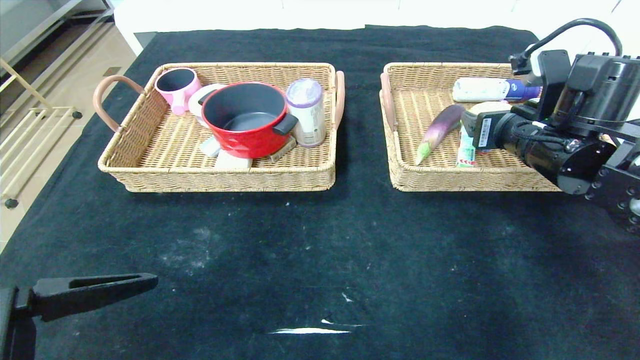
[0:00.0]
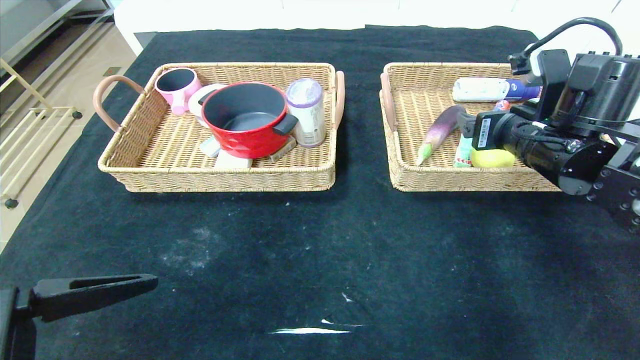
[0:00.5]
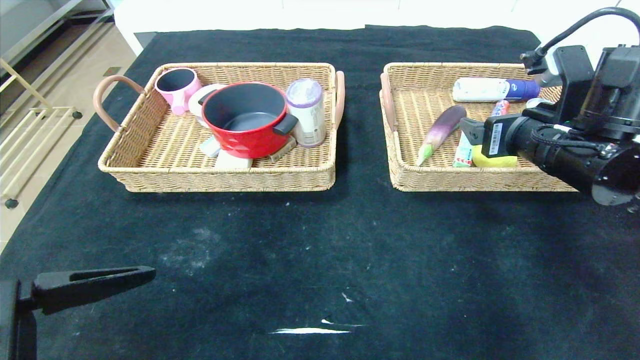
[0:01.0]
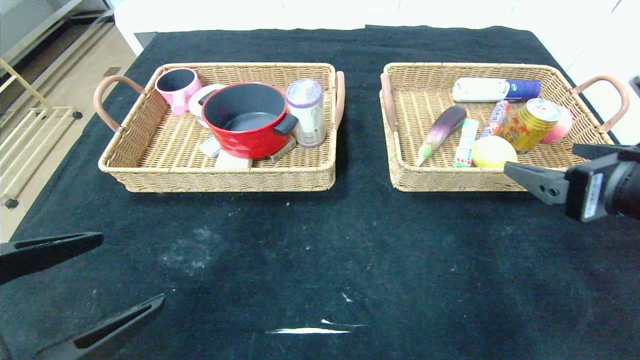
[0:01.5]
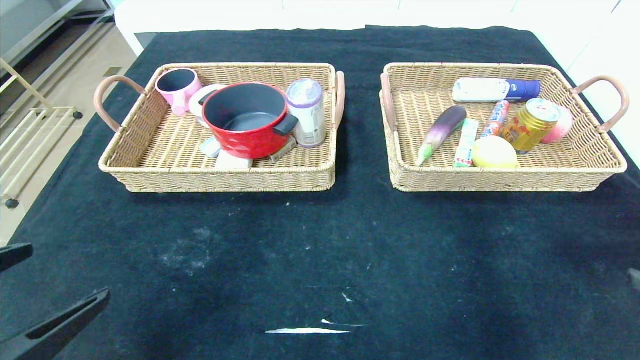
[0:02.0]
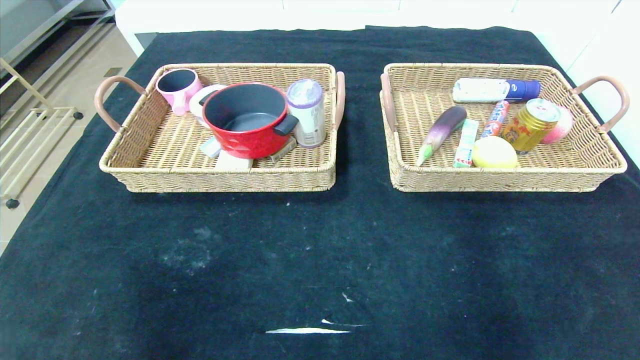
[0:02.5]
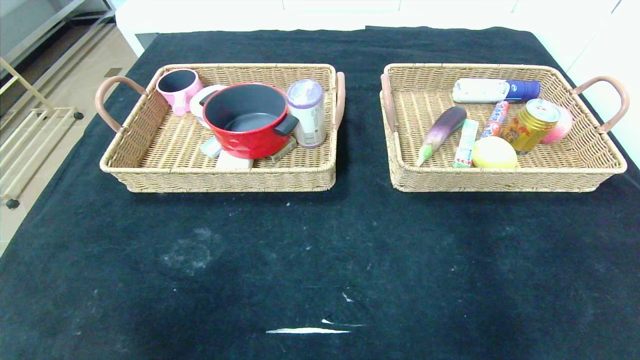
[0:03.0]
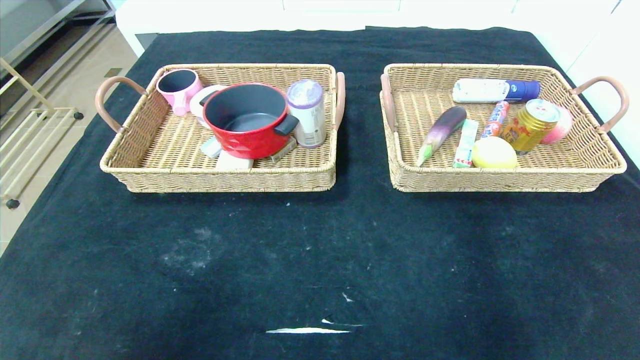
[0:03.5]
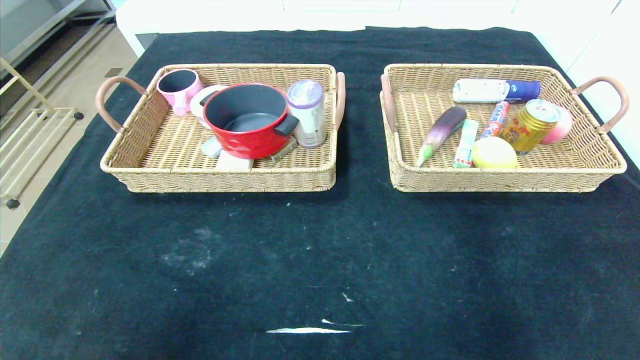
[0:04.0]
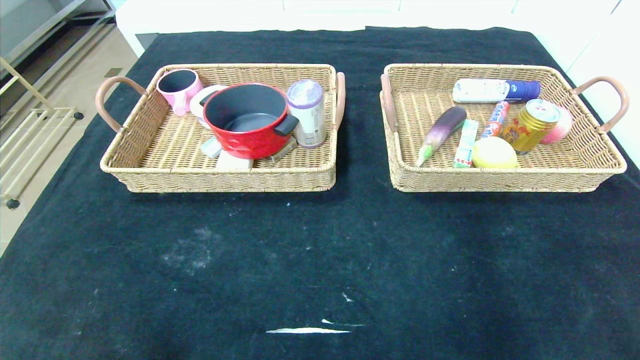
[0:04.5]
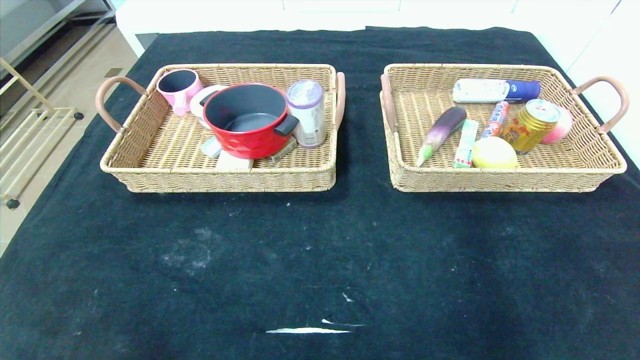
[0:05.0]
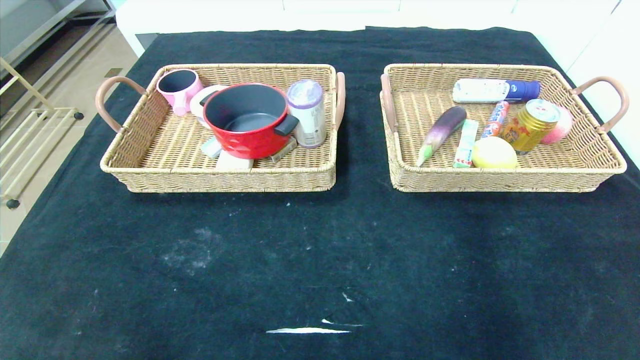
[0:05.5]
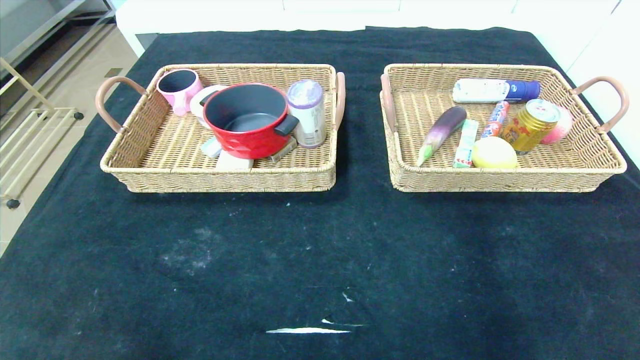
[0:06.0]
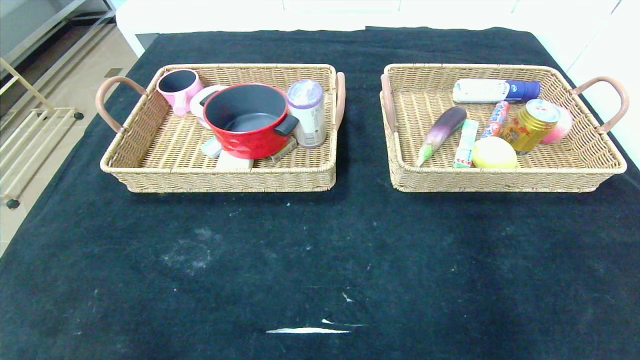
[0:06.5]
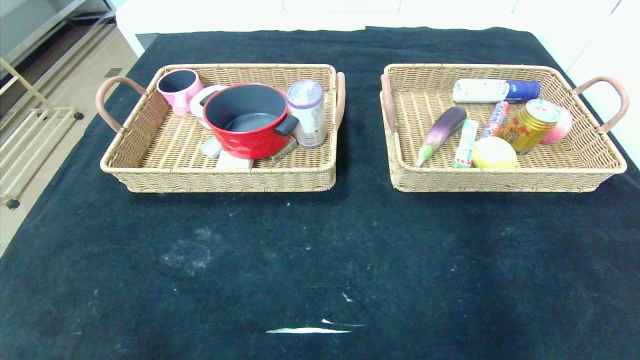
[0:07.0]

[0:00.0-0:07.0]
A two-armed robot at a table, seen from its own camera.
0.0 to 2.0 s: The right gripper goes about 25 cm backward.
2.0 to 3.5 s: The left gripper moves backward and downward, some 10 cm; the right gripper travels backward by some 15 cm.

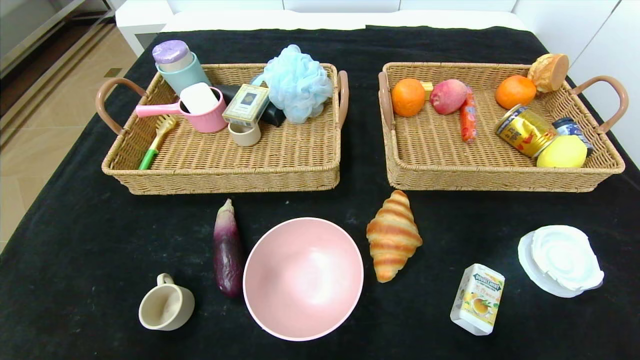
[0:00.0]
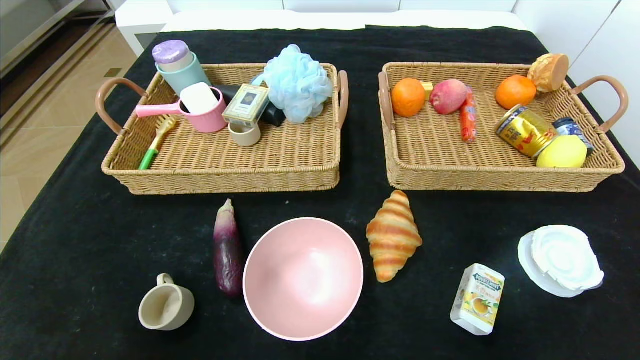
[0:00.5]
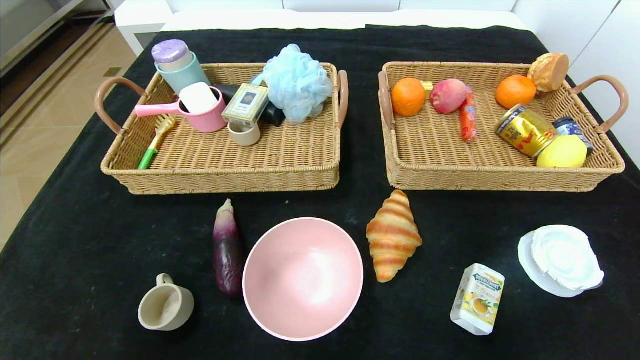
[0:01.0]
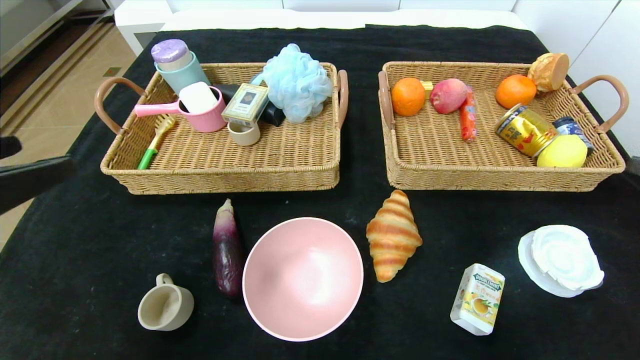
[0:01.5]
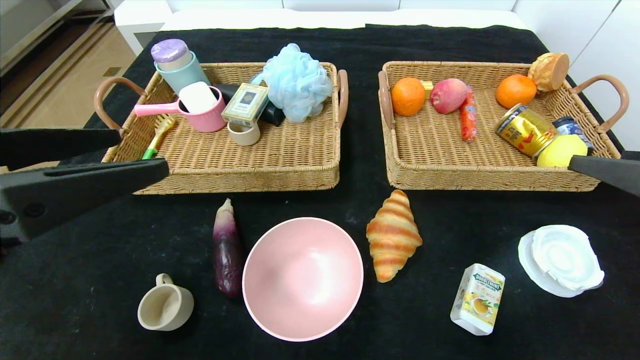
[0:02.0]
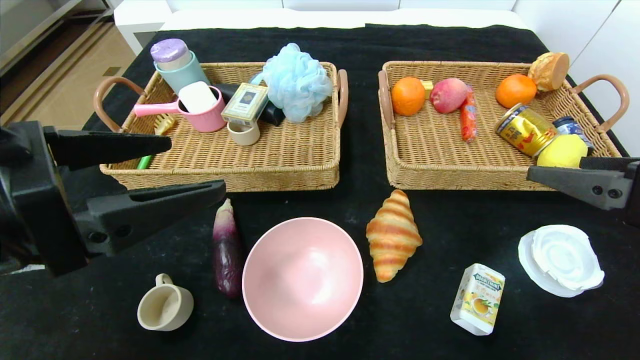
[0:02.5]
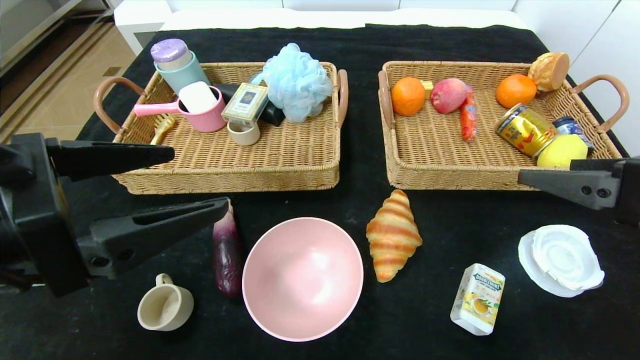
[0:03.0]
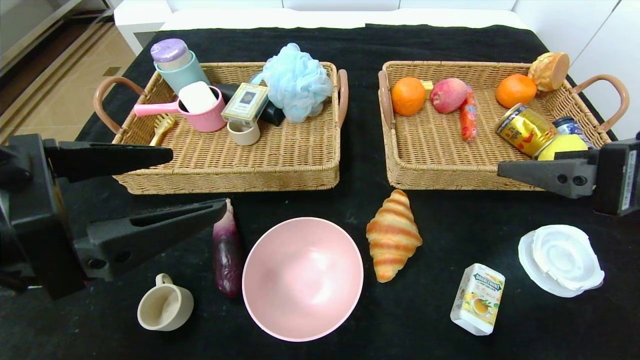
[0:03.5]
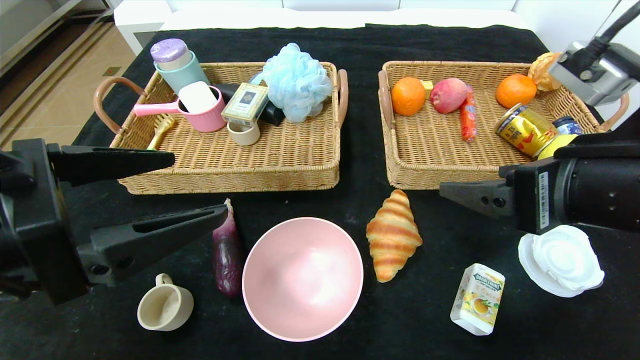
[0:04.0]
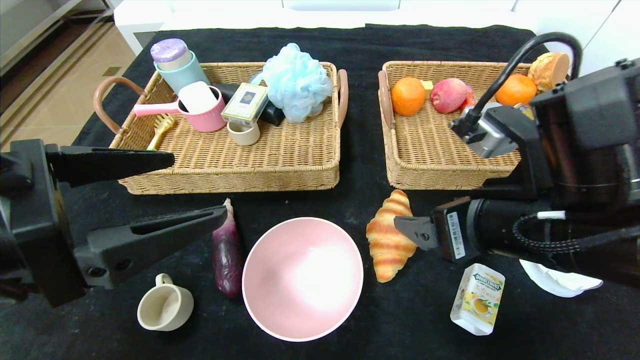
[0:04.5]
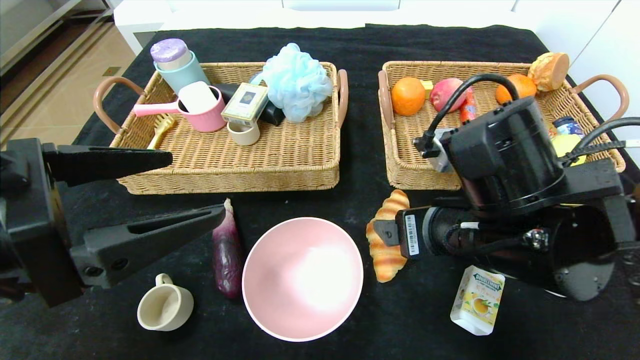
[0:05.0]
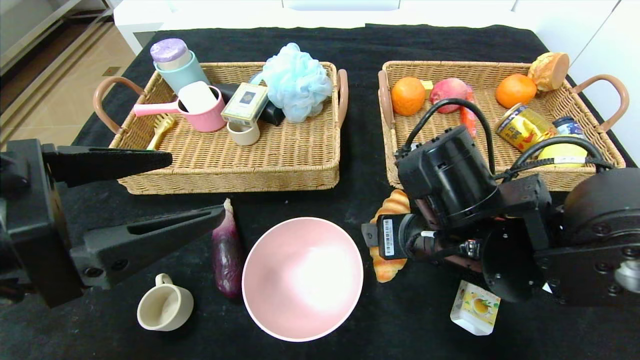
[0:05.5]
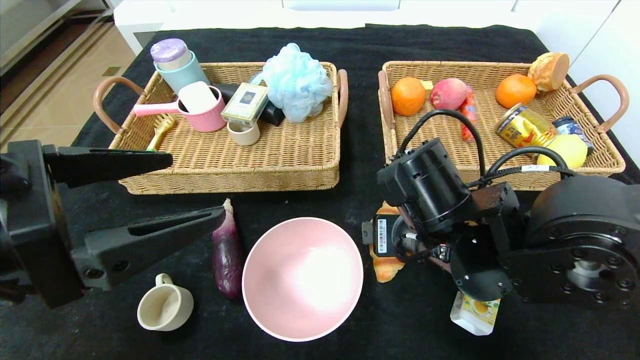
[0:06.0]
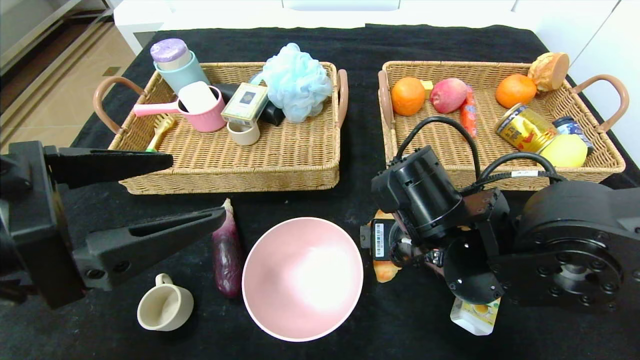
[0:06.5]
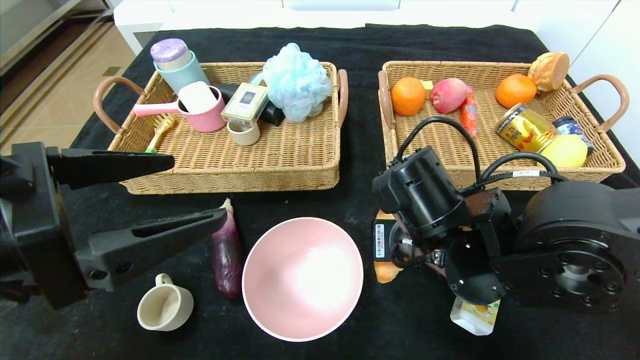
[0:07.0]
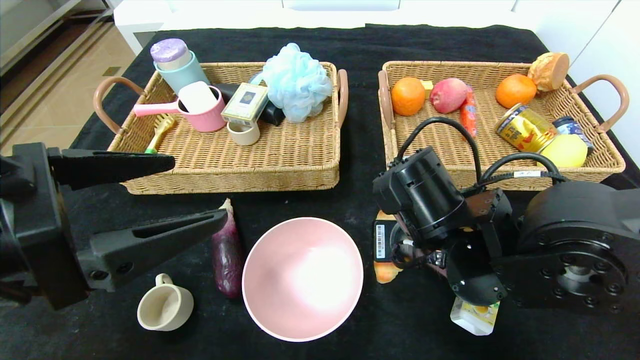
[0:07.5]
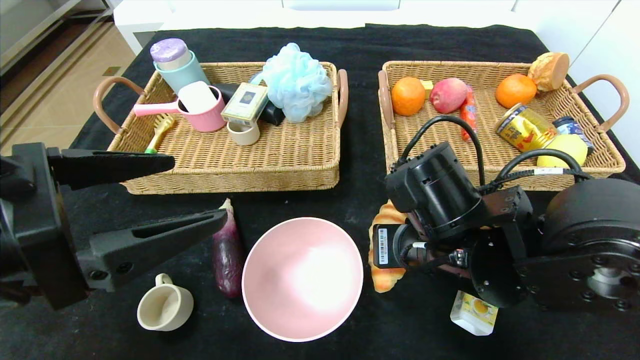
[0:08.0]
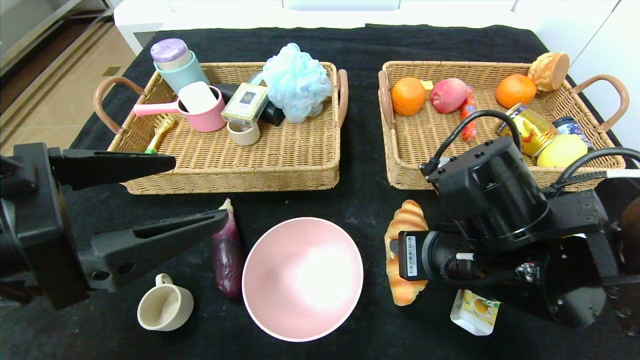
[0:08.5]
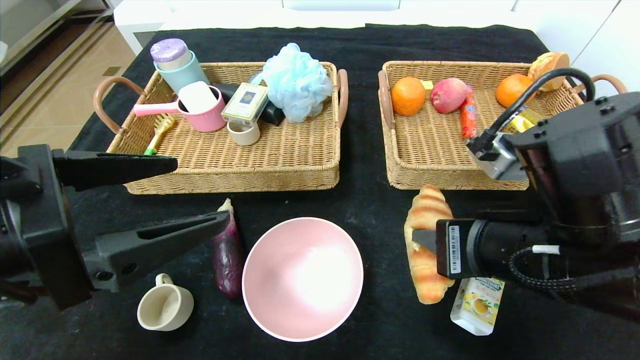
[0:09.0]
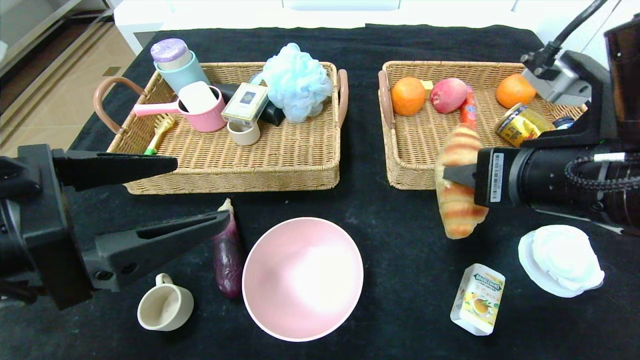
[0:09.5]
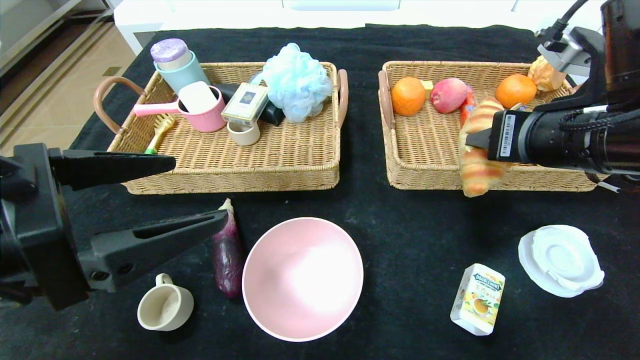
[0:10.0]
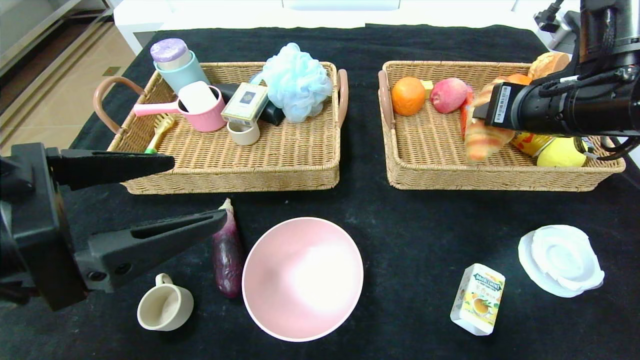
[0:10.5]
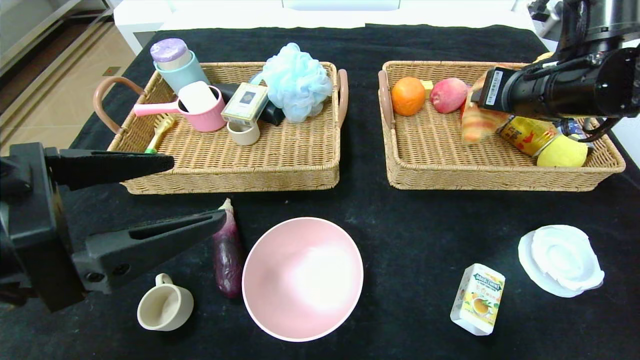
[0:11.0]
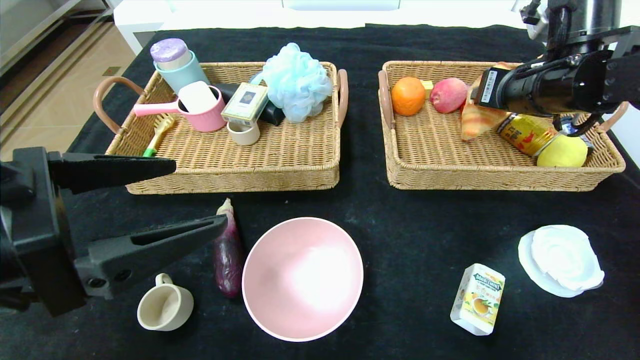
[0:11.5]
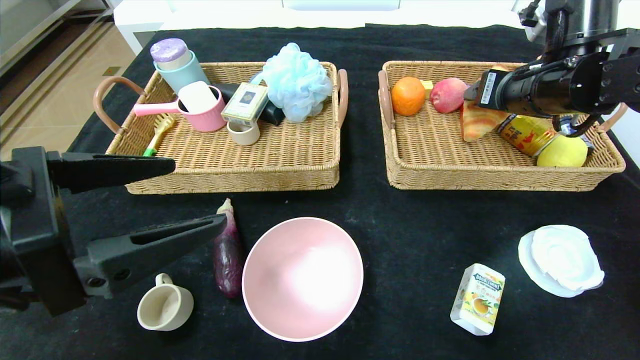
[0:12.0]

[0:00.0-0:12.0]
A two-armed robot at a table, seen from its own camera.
0.0 to 2.0 s: The grippers both shift upward and forward by about 25 cm.
2.0 to 4.0 s: The right gripper heads to the left, covering roughly 10 cm.
4.0 to 6.0 s: The right gripper is displaced to the left, downward and forward by roughly 15 cm.
6.0 to 8.0 s: The right gripper closes.
8.0 to 10.0 s: The right gripper is displaced to the right and upward by some 15 cm.
10.0 to 12.0 s: The right gripper travels forward by some 10 cm.

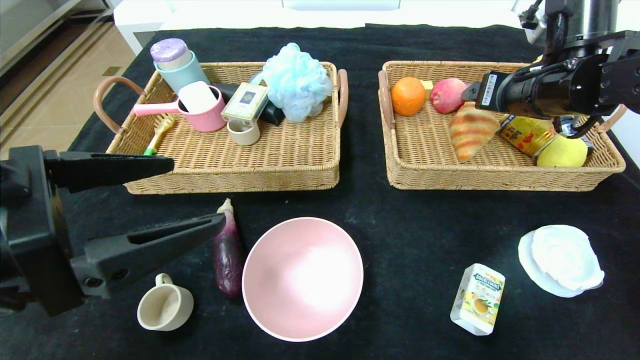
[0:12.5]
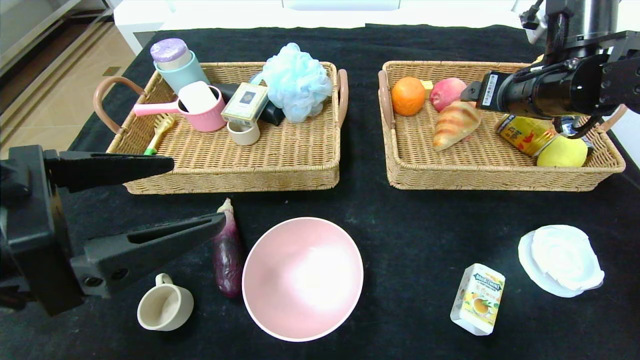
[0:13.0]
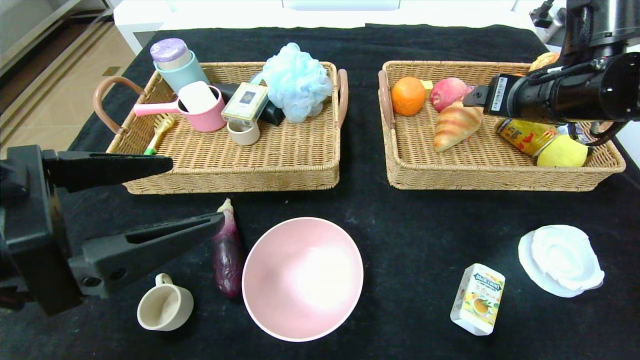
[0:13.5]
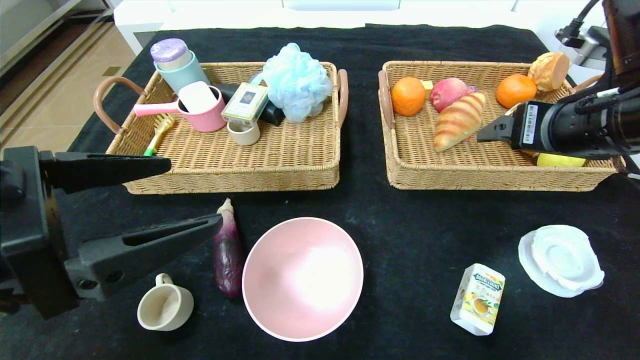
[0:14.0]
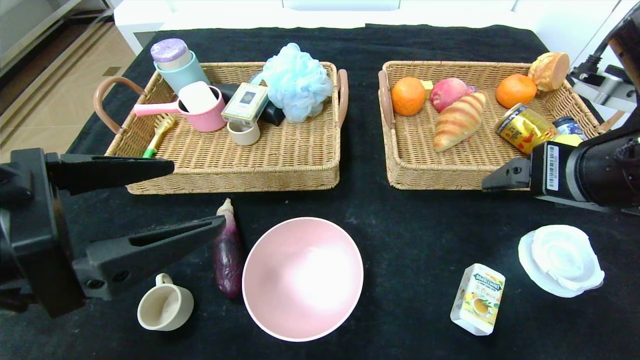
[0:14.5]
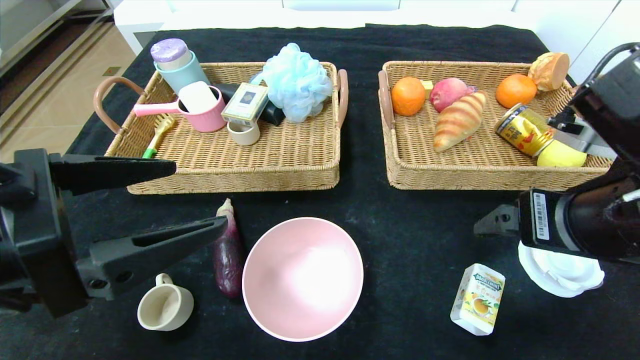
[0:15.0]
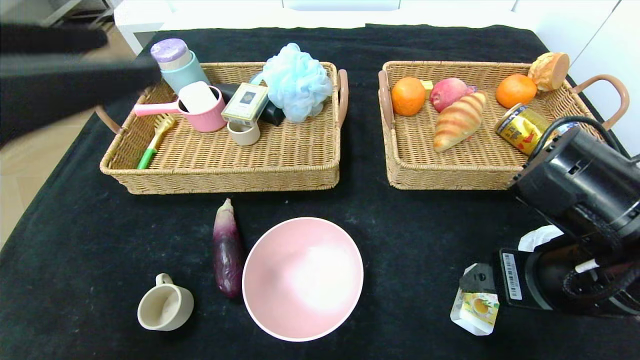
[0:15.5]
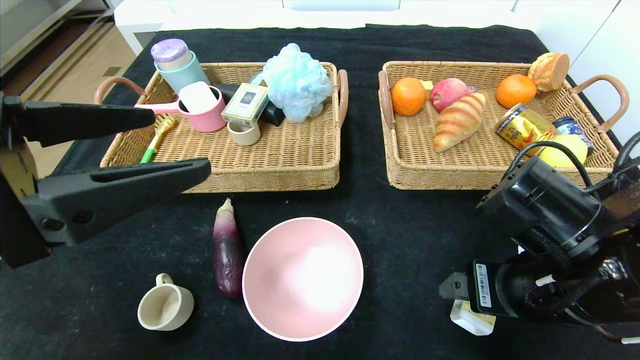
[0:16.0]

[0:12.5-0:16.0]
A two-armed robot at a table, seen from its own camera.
Step, 12.5 to 15.0 s: Pick up the croissant and put it in the right basket.
12.5 to 14.5 s: The right gripper travels backward by roughly 15 cm.
14.5 to 16.0 s: The right gripper is displaced downward by about 10 cm.
